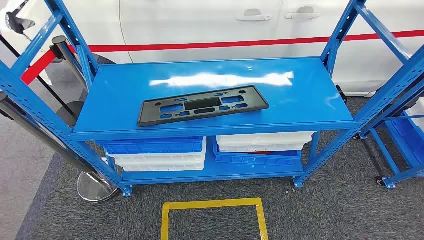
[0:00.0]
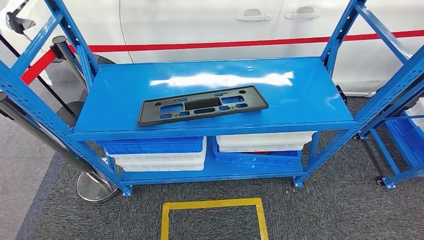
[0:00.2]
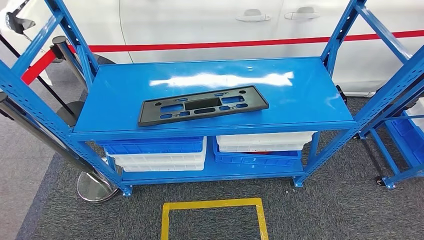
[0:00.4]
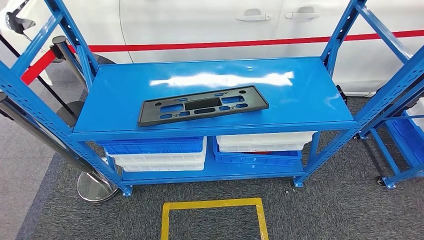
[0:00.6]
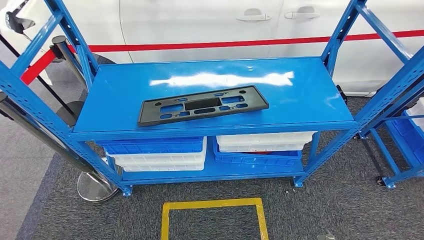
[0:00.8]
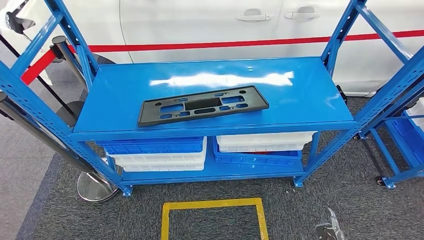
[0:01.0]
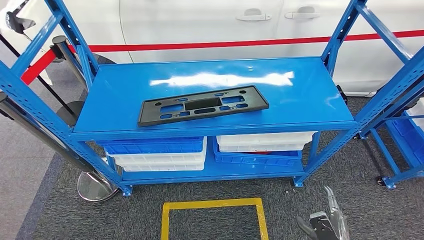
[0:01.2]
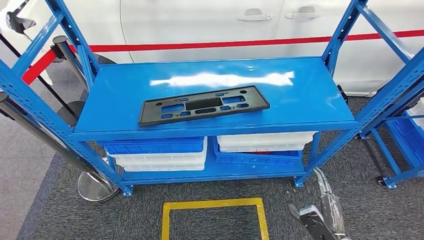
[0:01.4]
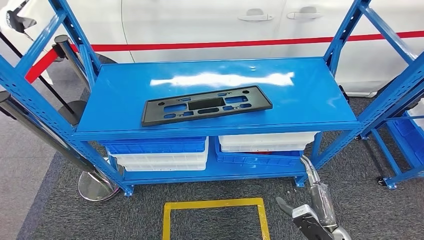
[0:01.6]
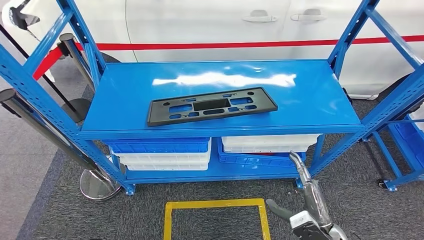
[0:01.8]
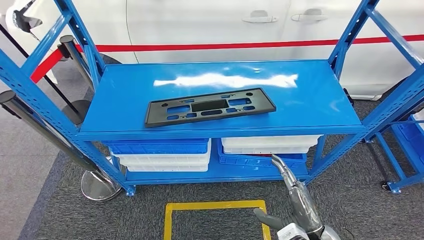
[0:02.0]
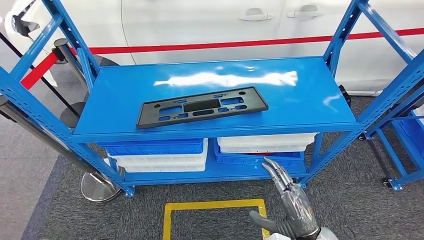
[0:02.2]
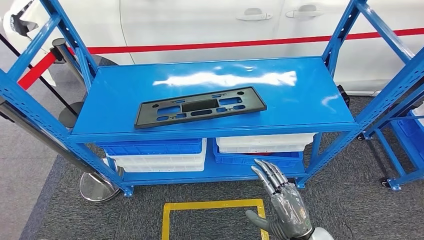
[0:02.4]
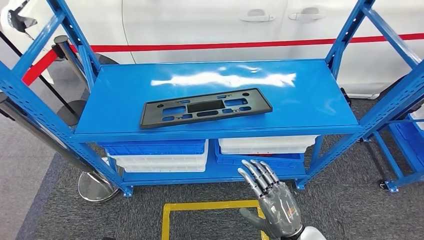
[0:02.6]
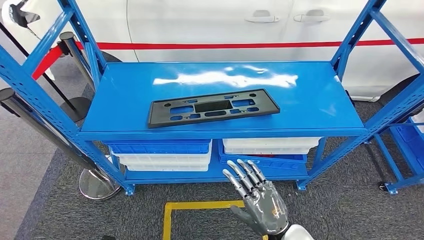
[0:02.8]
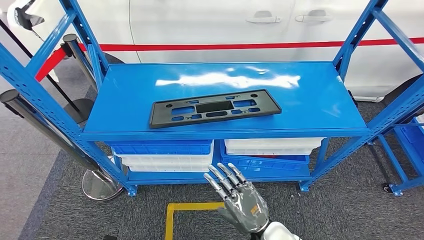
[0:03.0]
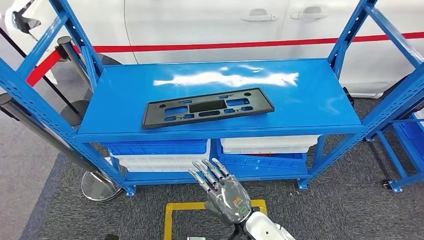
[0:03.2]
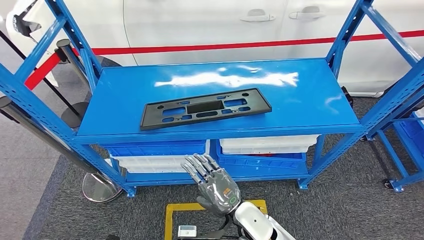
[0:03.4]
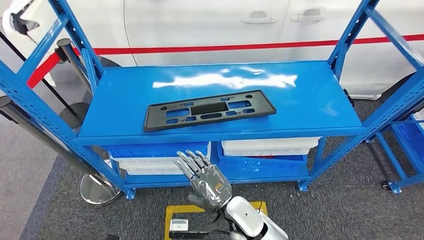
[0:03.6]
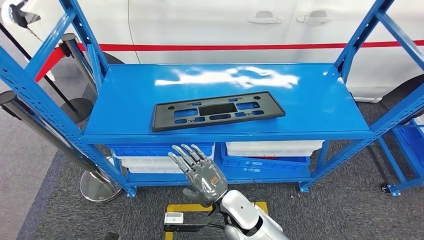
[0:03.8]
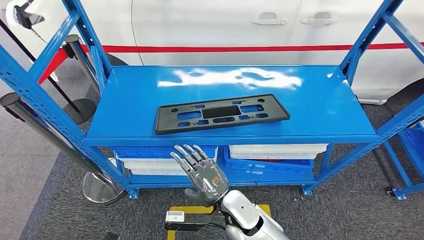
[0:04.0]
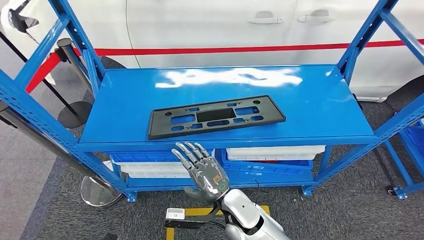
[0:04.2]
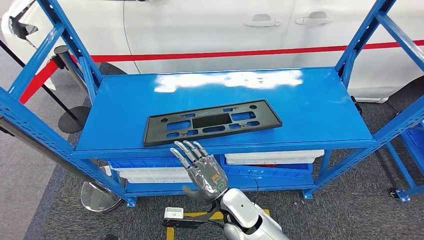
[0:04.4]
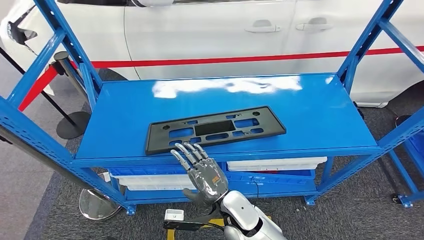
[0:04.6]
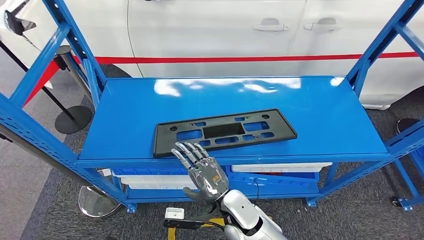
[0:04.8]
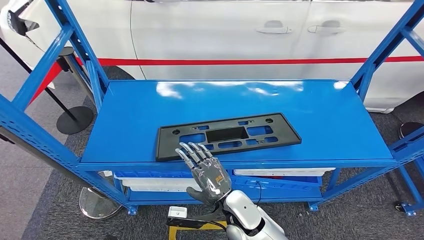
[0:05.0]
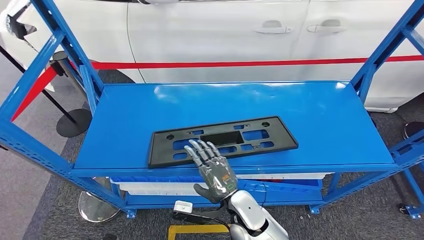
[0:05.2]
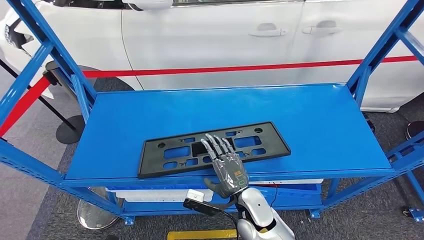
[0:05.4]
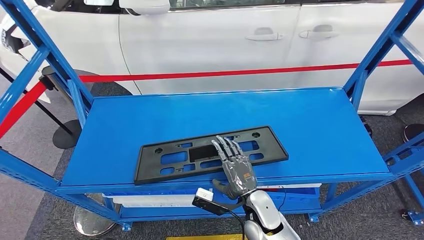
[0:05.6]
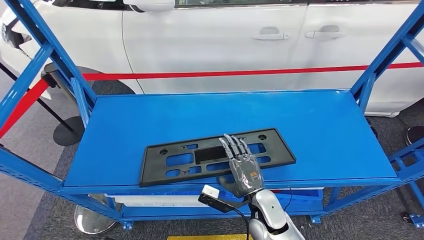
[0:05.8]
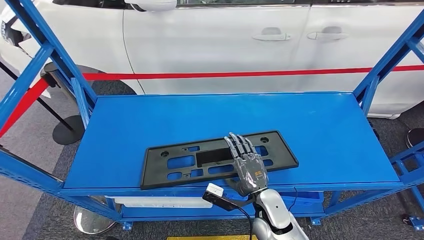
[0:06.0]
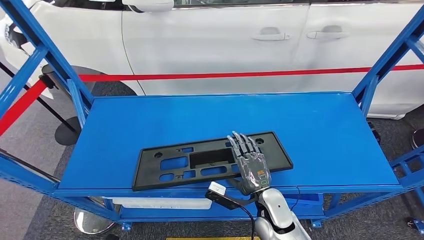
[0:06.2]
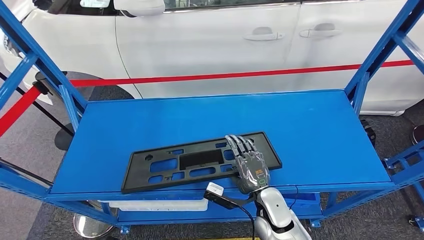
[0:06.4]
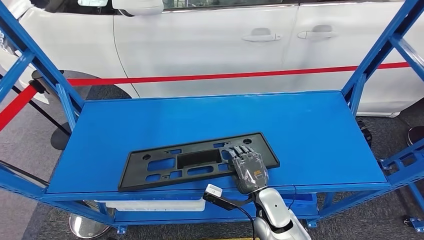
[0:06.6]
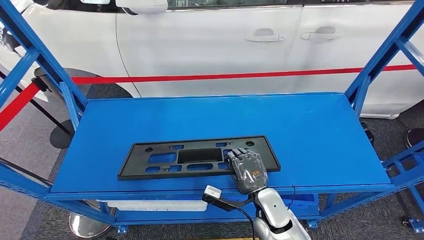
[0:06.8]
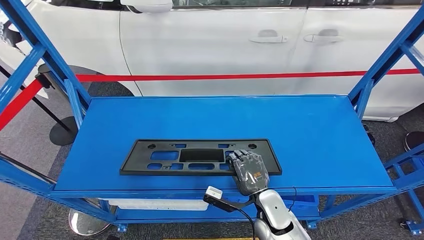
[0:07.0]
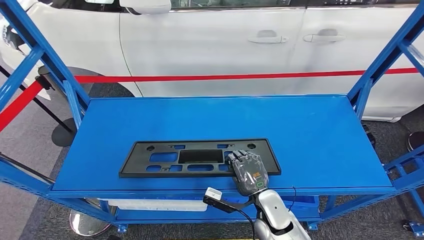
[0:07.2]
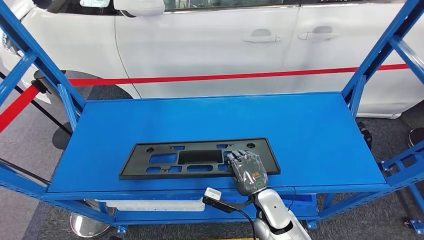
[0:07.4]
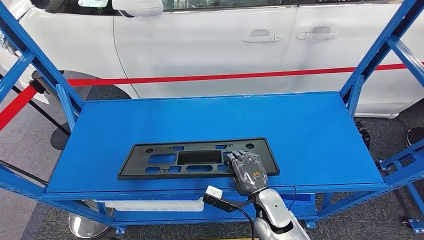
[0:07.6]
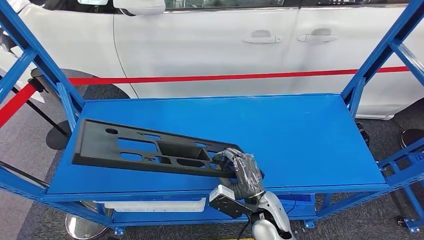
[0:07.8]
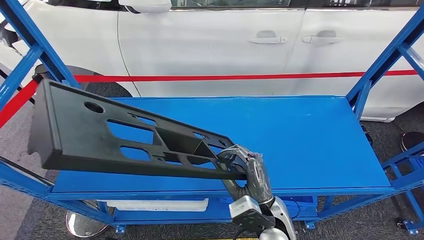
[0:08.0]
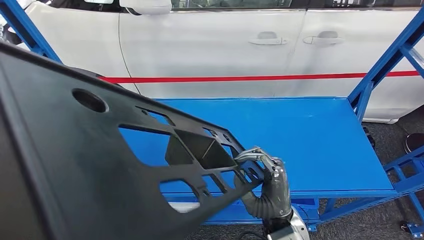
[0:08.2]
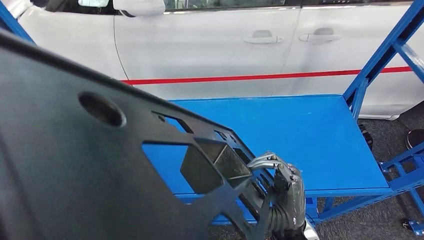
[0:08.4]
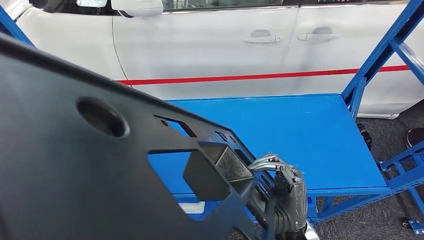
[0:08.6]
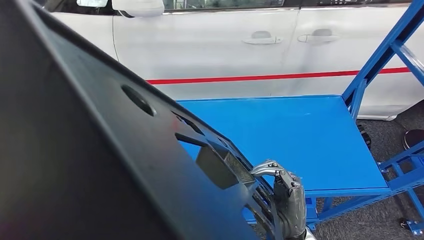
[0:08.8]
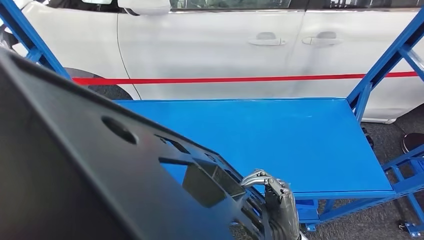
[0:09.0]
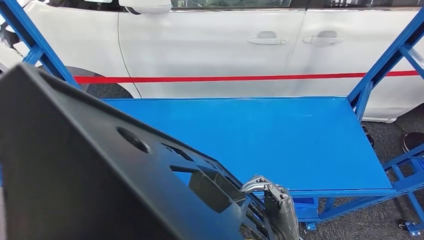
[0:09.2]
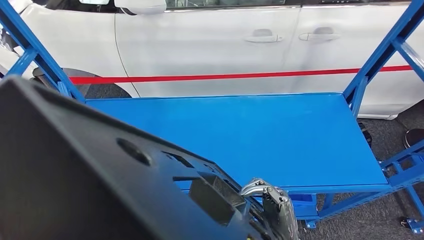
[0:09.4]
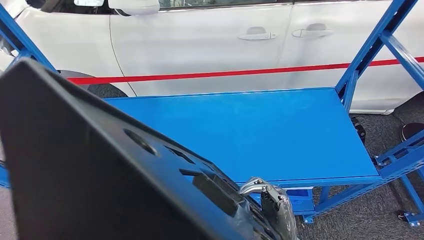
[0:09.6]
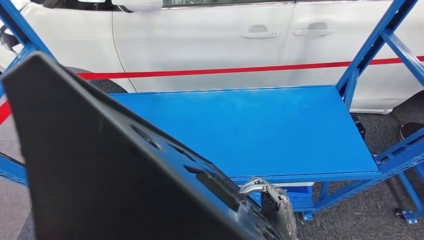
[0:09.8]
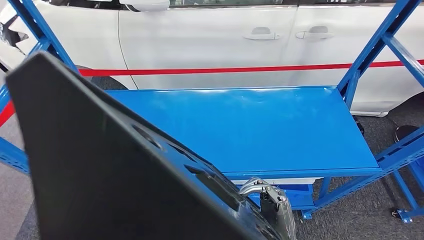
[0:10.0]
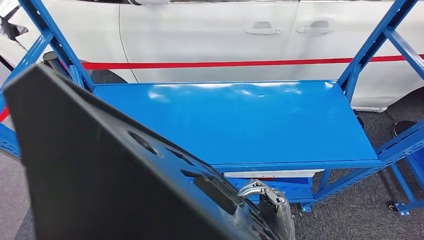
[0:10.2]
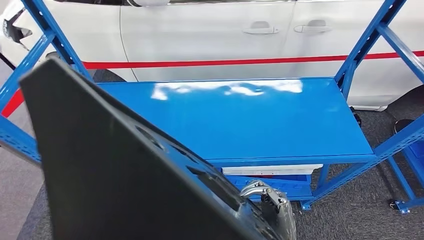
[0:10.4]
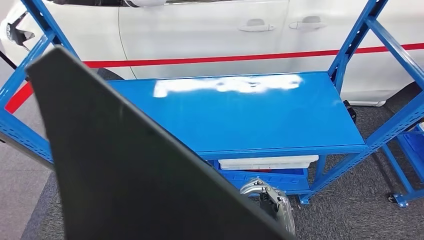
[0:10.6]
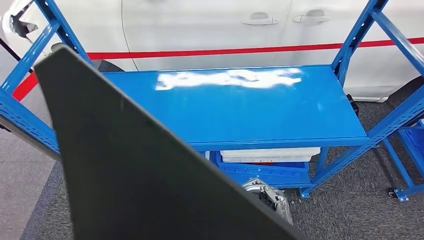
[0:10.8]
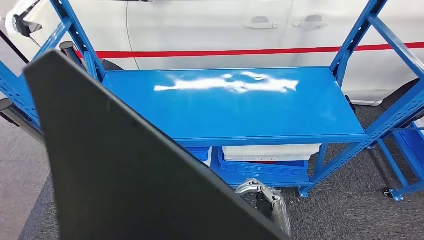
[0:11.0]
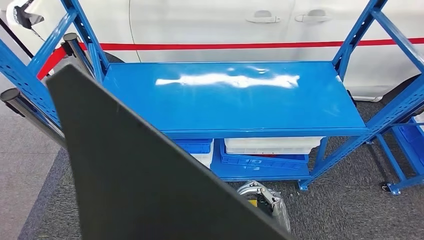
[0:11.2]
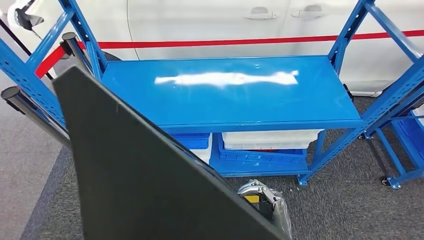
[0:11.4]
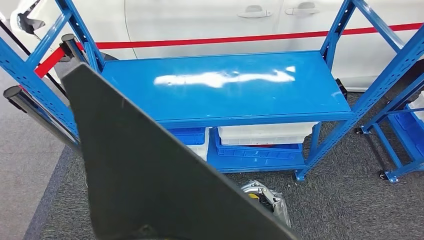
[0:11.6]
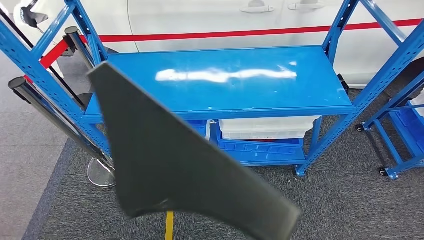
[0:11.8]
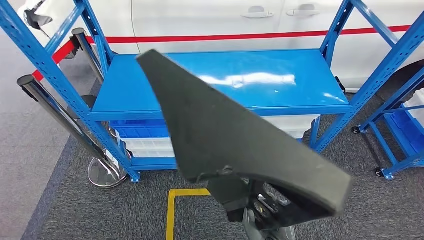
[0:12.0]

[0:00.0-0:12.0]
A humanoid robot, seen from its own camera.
Step, 0:00.0 to 0:10.8: Pick up the large material from the shelf.

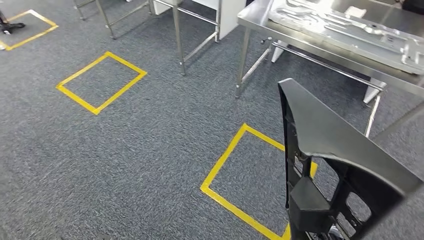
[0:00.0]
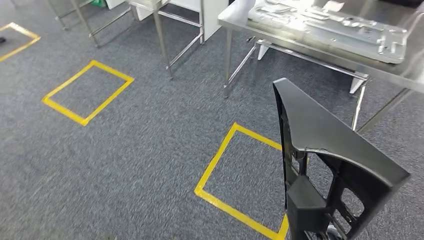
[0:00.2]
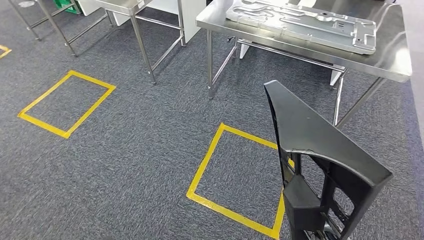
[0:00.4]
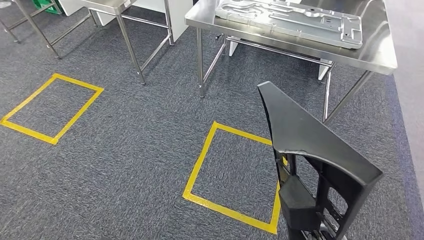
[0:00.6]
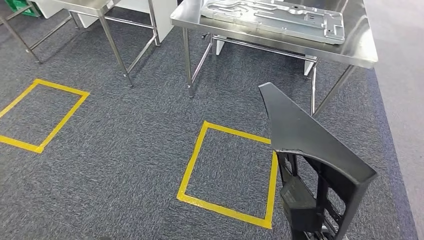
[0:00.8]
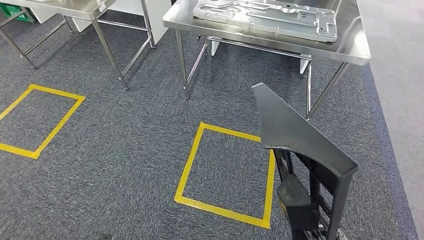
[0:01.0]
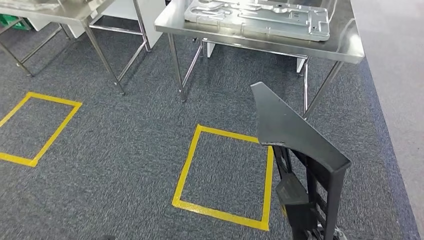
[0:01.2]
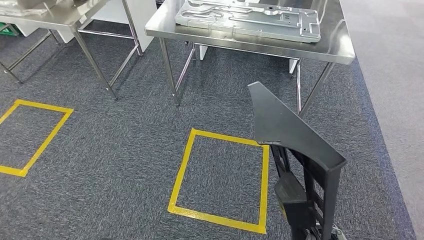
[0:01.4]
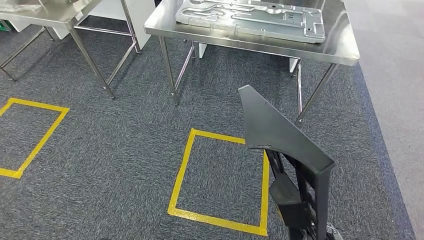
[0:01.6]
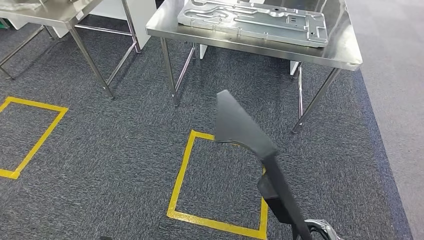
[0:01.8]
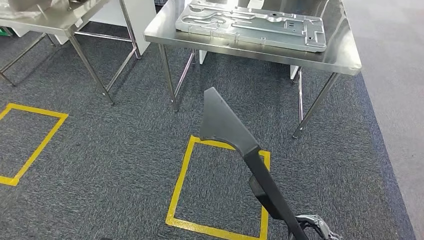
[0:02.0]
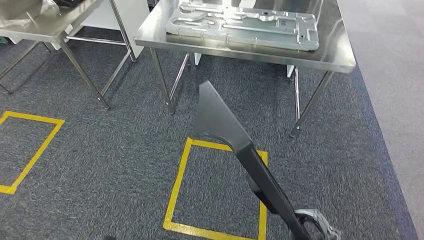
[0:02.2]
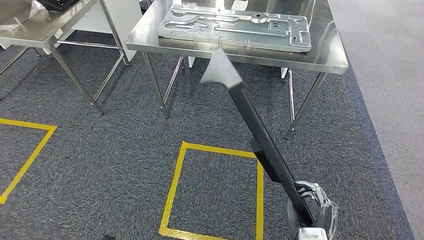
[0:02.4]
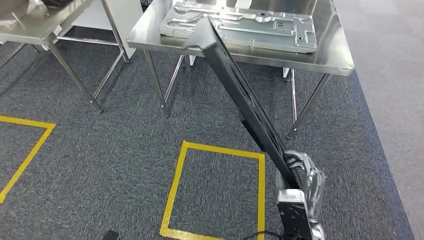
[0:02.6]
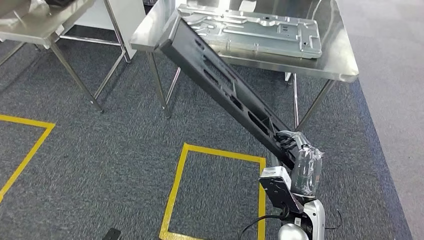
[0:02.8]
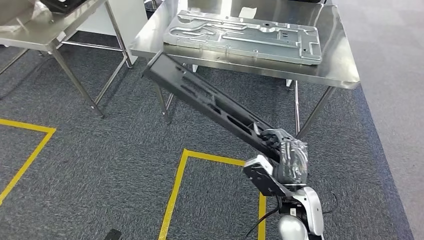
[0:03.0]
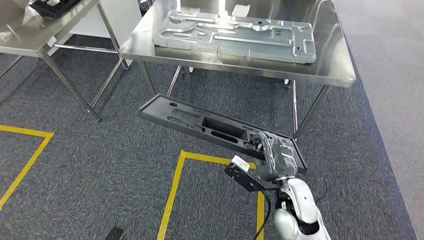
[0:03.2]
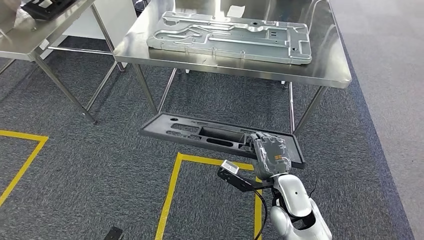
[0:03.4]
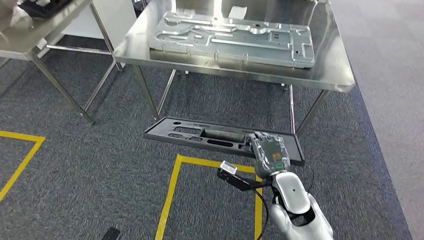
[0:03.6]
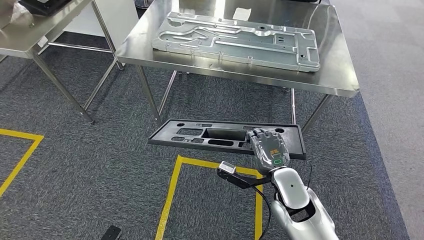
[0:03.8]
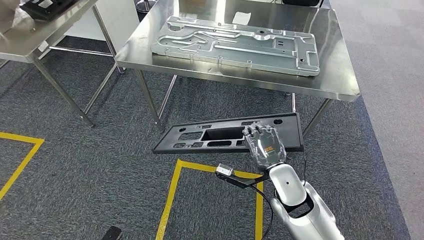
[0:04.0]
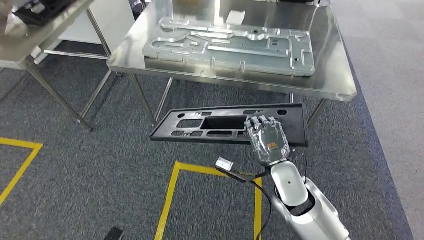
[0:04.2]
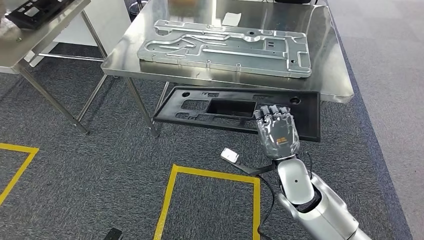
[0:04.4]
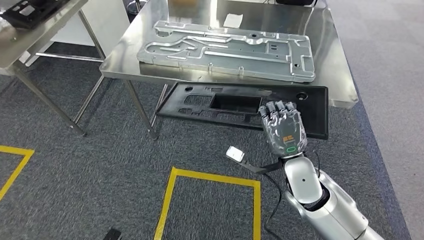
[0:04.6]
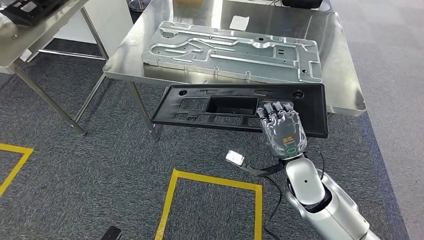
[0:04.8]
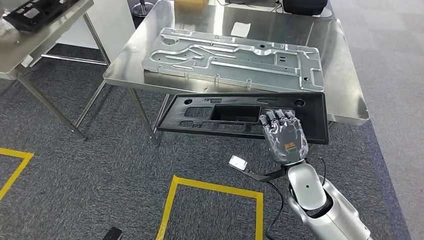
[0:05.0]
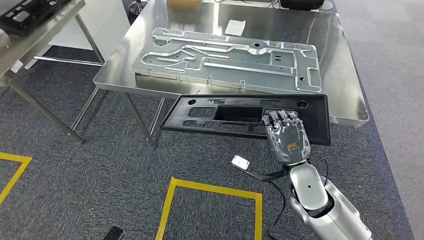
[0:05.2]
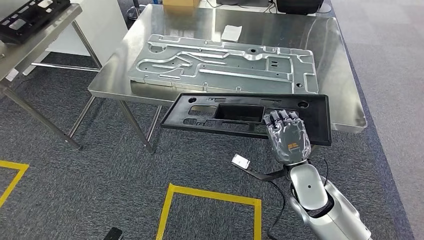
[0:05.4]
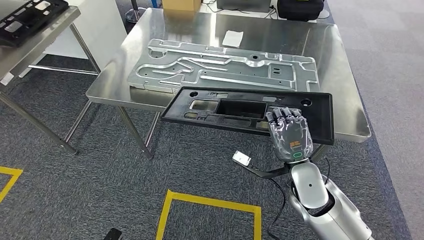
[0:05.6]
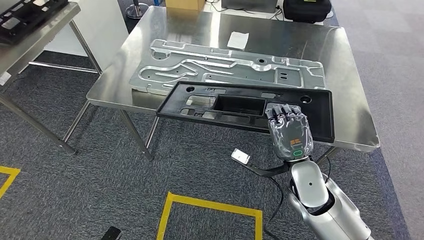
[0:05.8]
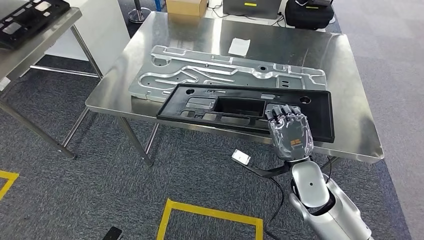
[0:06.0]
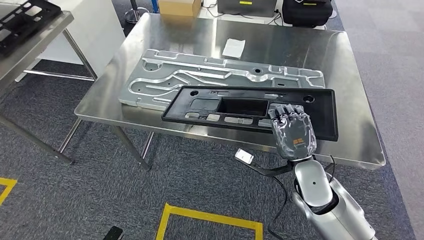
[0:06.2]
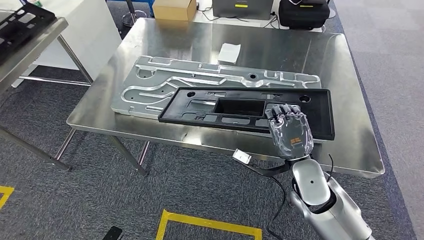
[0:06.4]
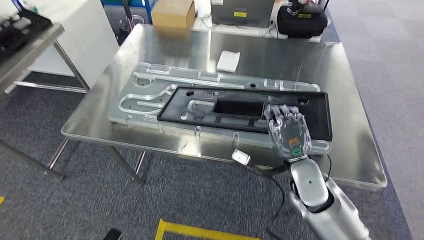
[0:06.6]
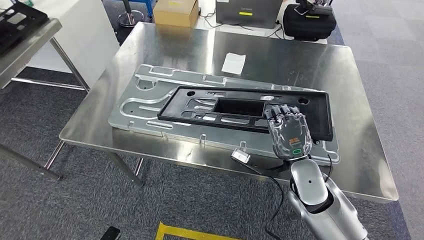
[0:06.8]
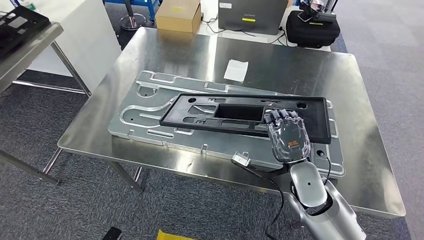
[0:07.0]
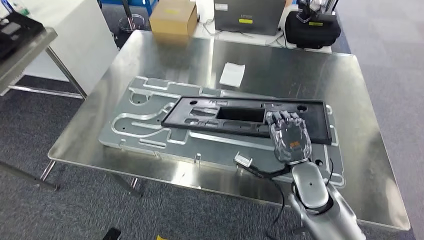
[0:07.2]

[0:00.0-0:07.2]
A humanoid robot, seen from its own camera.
Step, 0:00.0 to 0:05.8: Move the large material to the front of the workbench.
